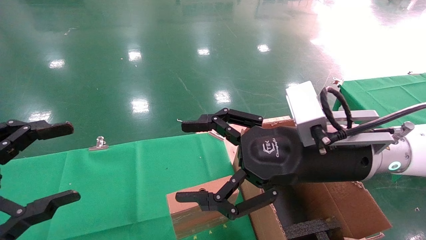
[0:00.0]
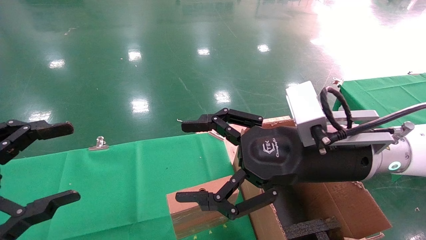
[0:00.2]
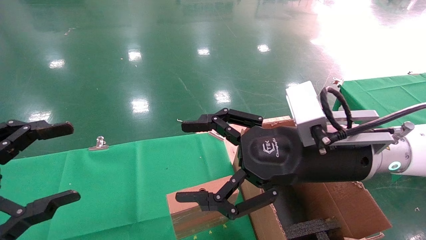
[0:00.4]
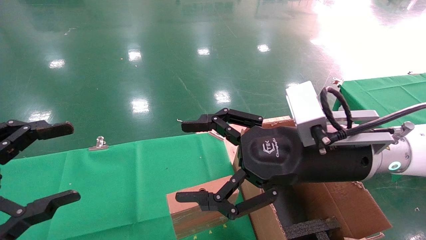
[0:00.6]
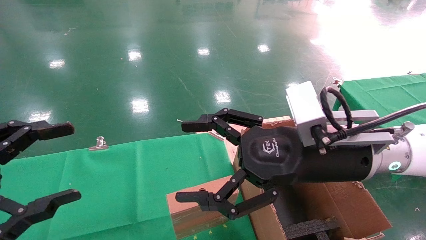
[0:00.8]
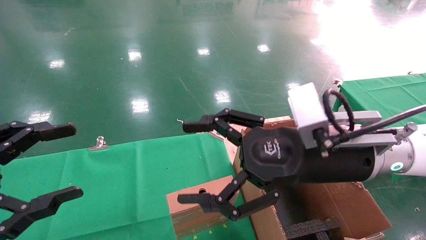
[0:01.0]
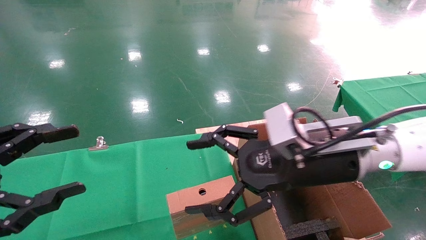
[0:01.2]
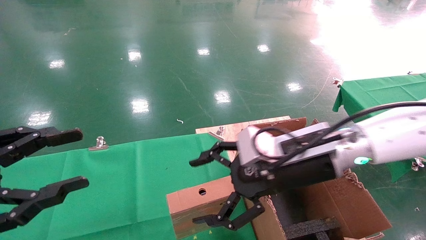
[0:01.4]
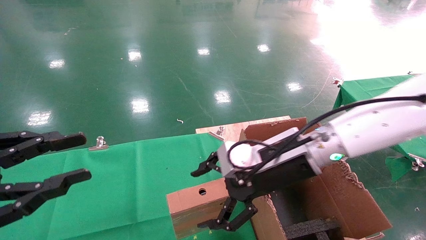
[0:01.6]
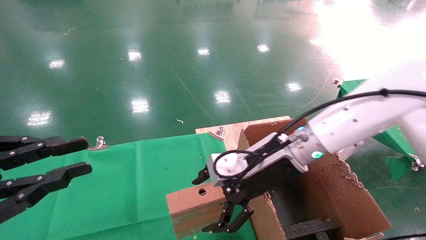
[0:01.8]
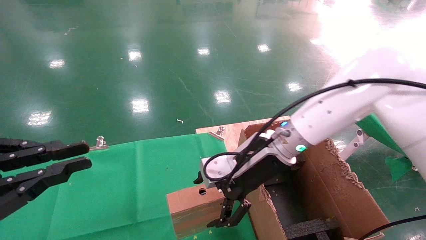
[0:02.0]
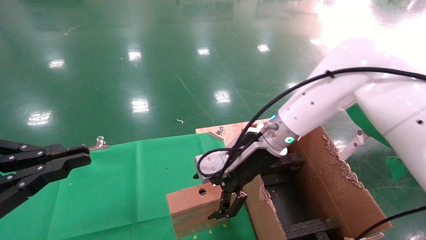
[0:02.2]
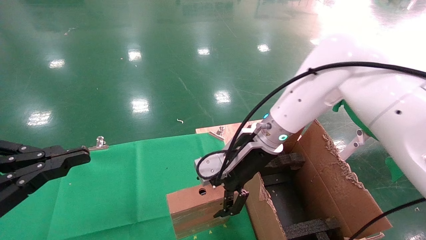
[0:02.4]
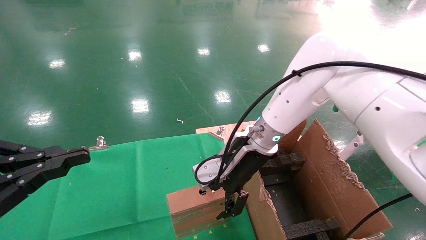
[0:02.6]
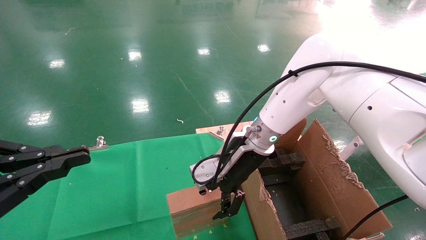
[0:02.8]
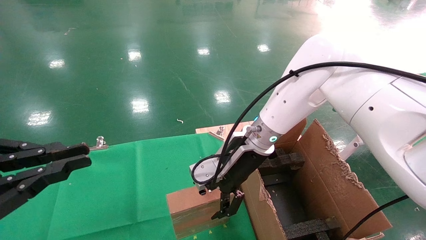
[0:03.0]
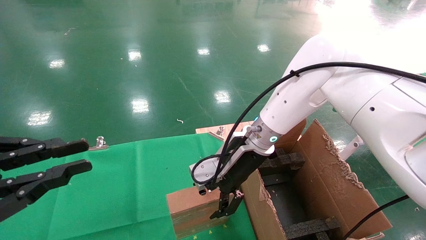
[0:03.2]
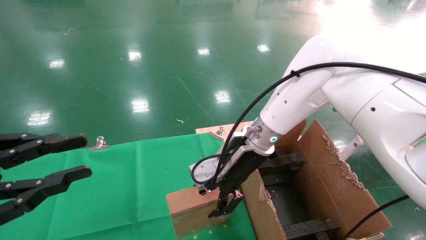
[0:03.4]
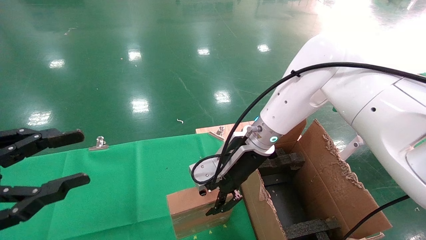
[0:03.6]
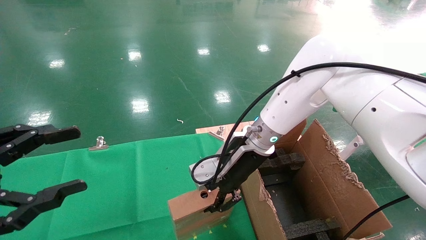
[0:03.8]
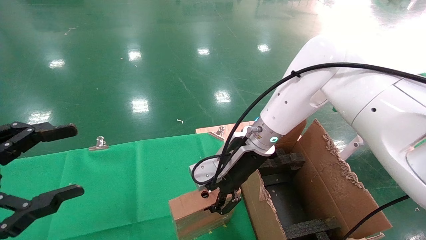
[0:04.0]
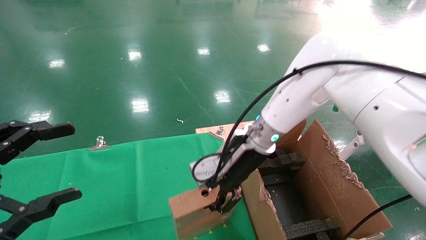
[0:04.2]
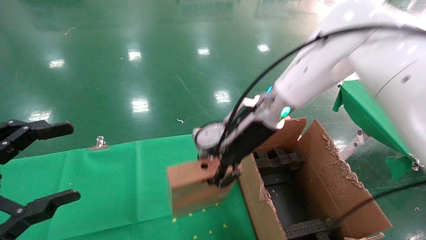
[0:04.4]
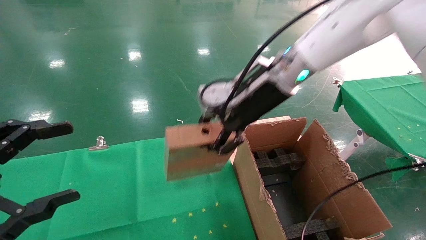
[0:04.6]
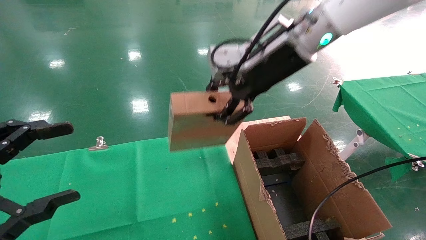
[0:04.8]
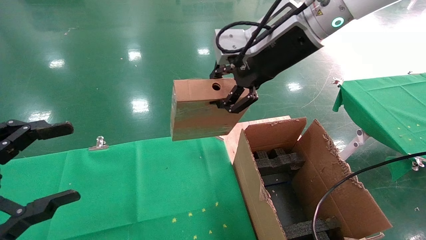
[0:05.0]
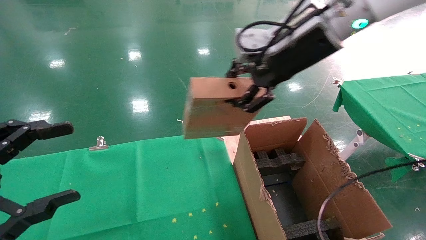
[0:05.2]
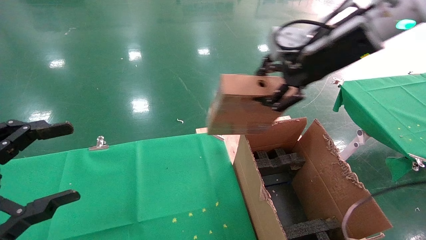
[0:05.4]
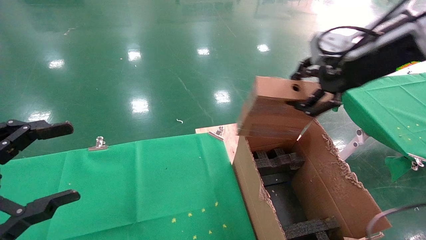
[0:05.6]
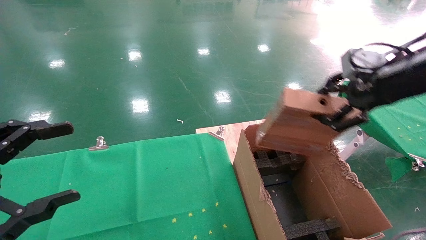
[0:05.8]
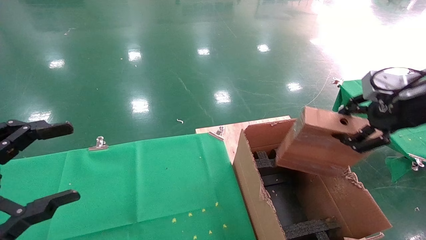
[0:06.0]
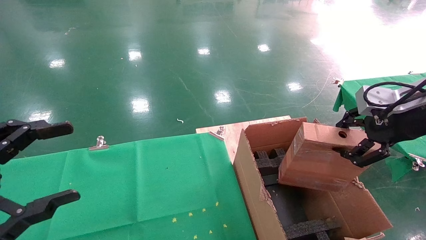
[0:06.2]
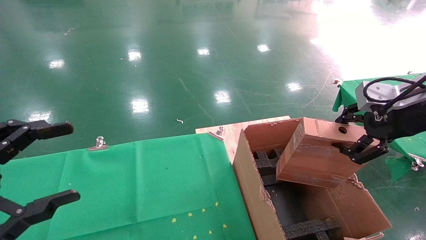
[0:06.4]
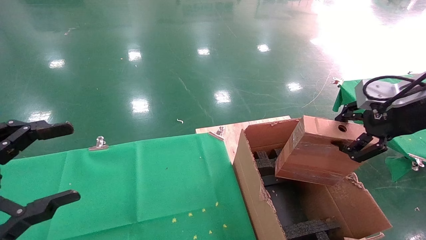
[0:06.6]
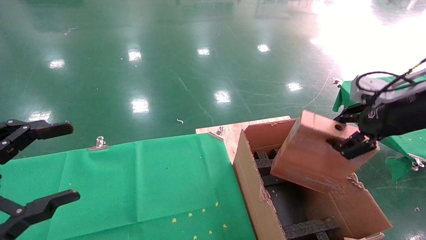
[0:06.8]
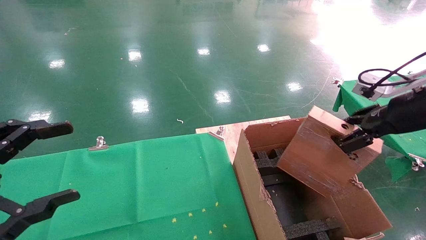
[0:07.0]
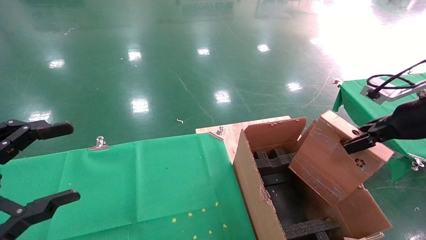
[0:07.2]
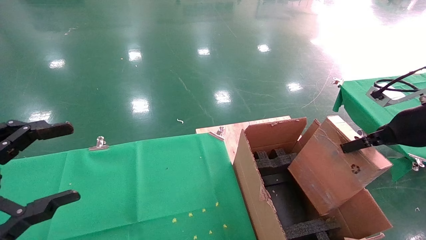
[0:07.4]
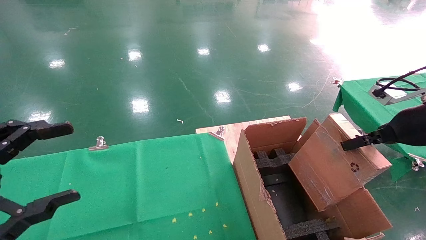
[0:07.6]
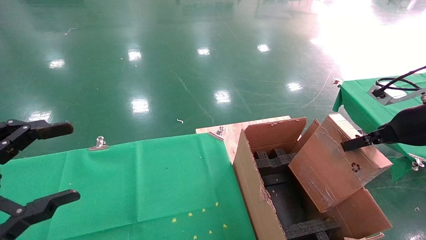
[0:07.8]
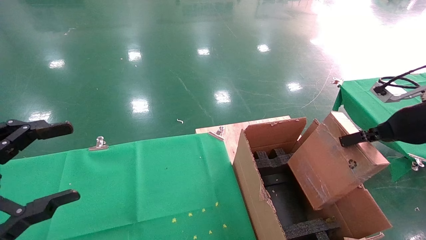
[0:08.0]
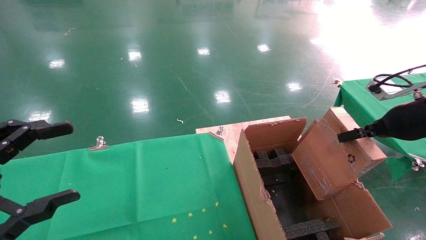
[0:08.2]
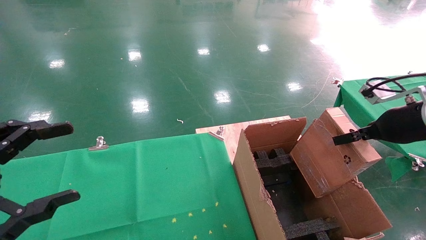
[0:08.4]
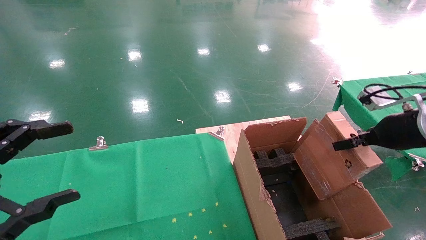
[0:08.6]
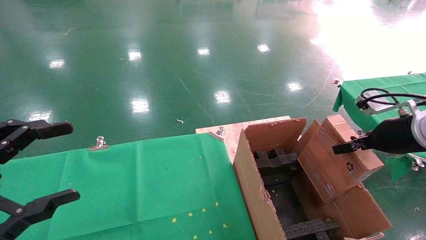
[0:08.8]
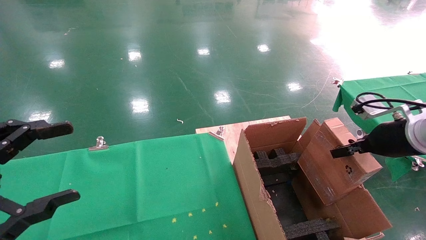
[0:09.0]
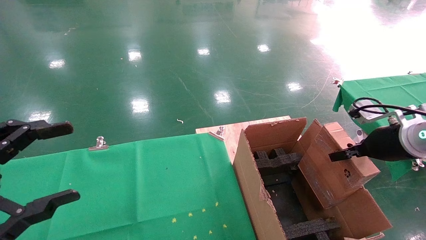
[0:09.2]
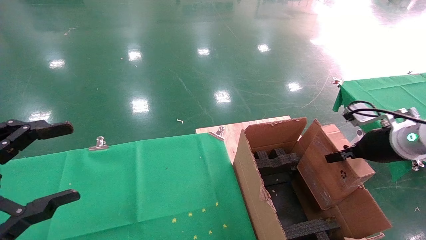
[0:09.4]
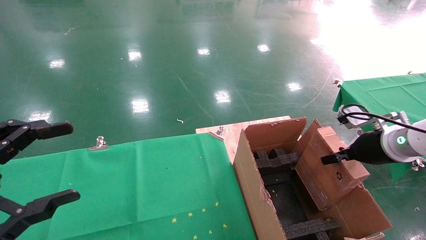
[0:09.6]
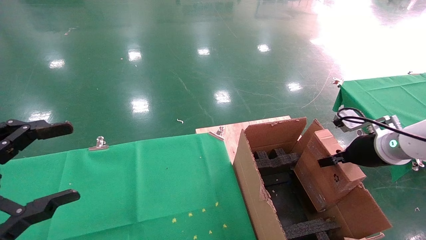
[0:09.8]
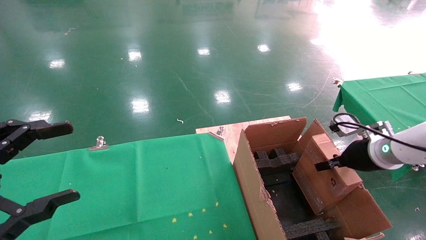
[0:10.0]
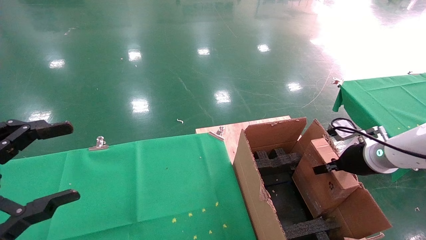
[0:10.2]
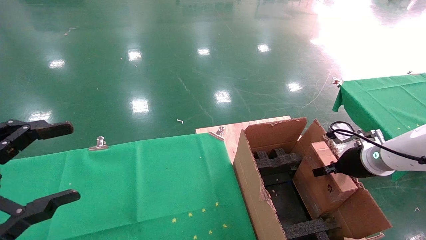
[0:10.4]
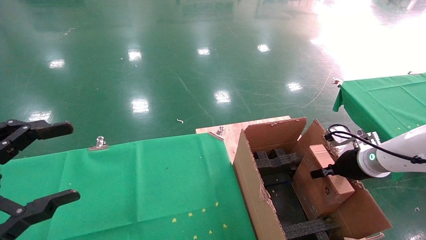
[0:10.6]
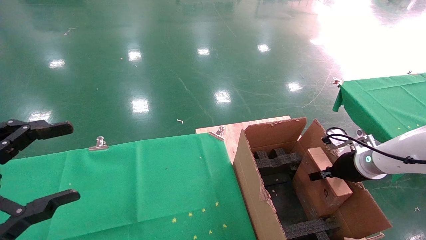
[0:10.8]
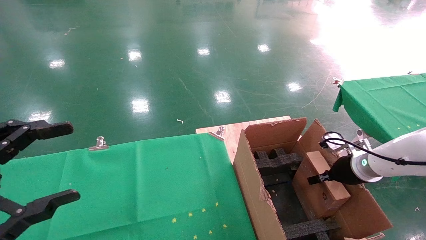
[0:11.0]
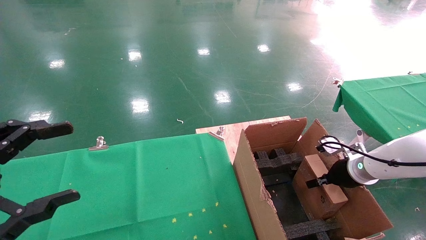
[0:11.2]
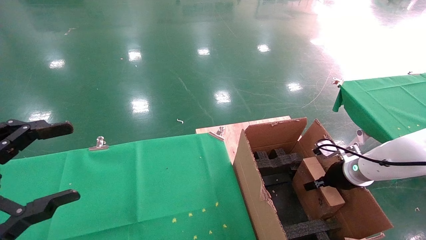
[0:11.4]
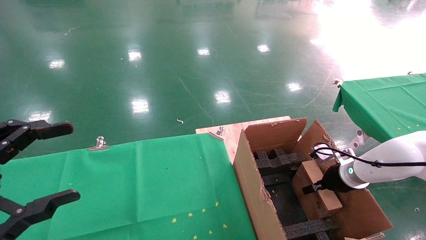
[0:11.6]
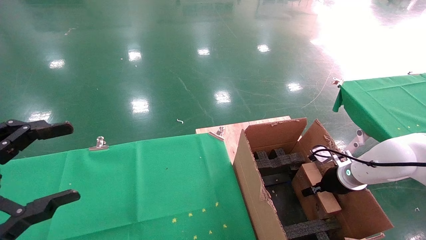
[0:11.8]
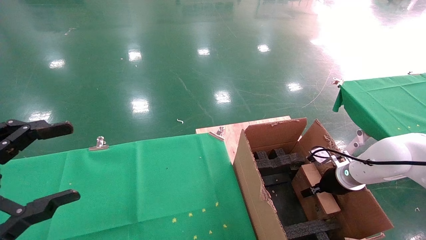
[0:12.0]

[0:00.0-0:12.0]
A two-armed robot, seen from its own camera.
Task of the whole recording: using a robotic arm to pick up a cardboard box and palace it the carton.
Step, 0:01.2 to 0:04.4: Pick up the mouse and the power cord paper box.
0:00.0 to 0:01.6: The left gripper closes its fingers. Meanwhile the right gripper is displaced forward by roughly 5 cm.
0:01.6 to 0:03.0: The left gripper closes up. Meanwhile the right gripper is displaced forward by approximately 10 cm.
0:03.0 to 0:04.4: The right gripper heads upward, covering some 5 cm, and closes up, while the left gripper opens.
0:04.4 to 0:06.0: The right gripper is displaced to the right and backward by some 30 cm.
0:06.0 to 0:07.6: The right gripper is displaced downward by approximately 5 cm.
0:07.6 to 0:09.0: The right gripper ends up roughly 5 cm from where it was.
0:09.0 to 0:10.4: The right gripper moves downward and forward, approximately 10 cm.
0:10.4 to 0:12.0: The right gripper travels downward by approximately 10 cm.

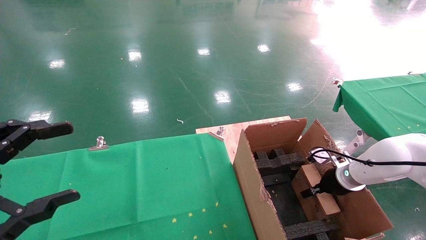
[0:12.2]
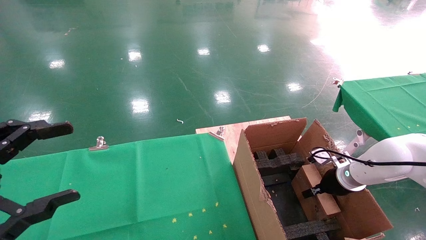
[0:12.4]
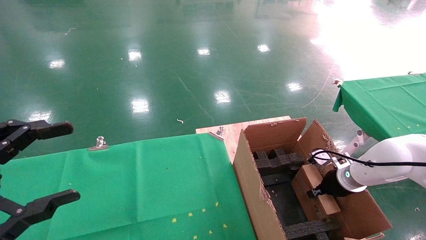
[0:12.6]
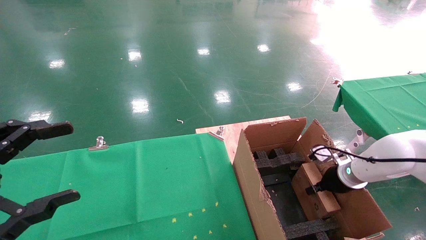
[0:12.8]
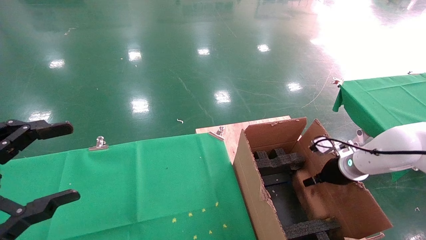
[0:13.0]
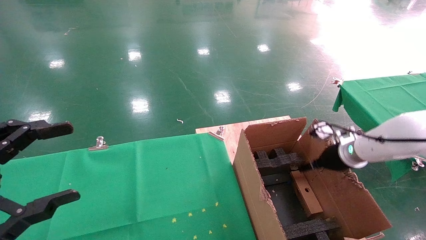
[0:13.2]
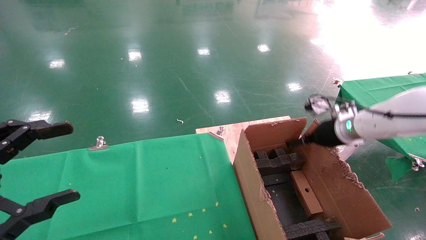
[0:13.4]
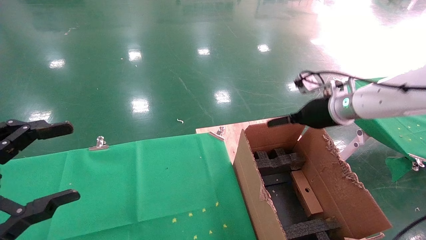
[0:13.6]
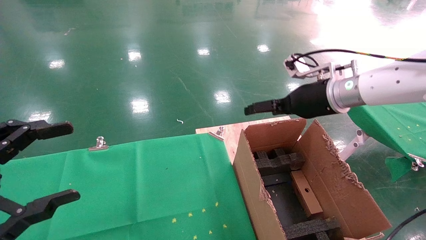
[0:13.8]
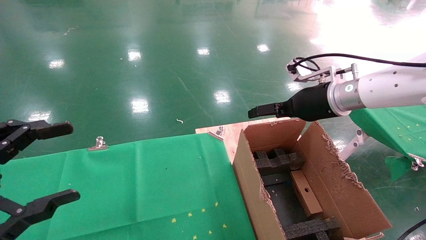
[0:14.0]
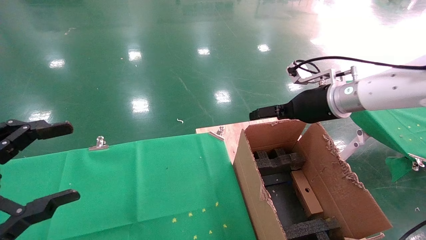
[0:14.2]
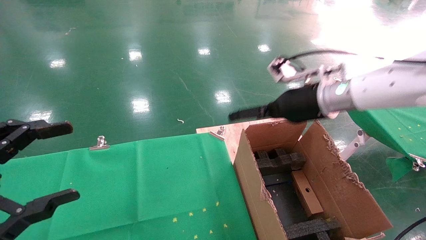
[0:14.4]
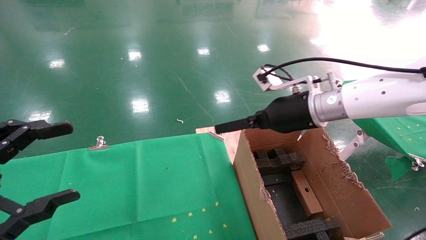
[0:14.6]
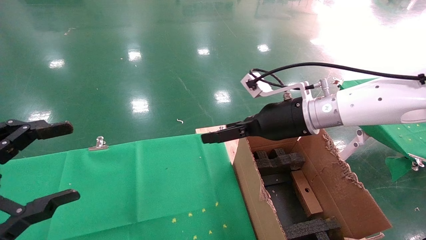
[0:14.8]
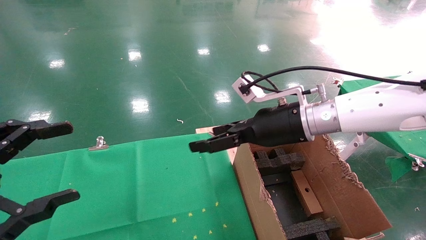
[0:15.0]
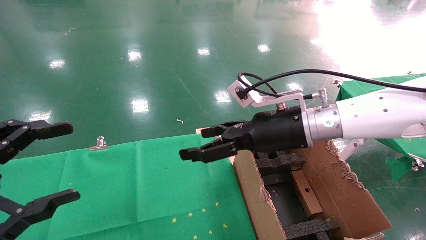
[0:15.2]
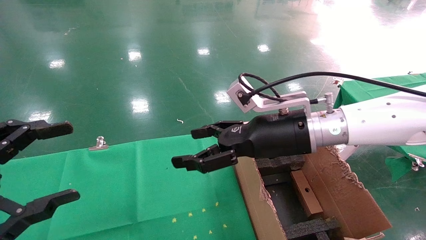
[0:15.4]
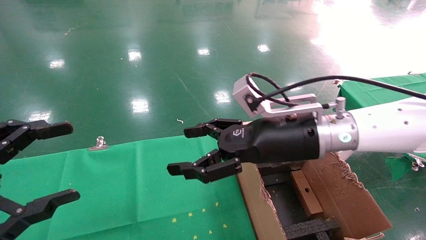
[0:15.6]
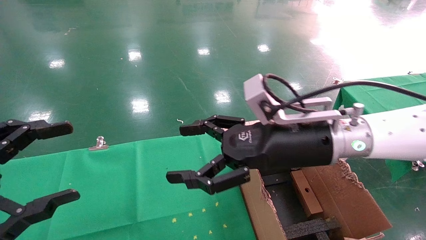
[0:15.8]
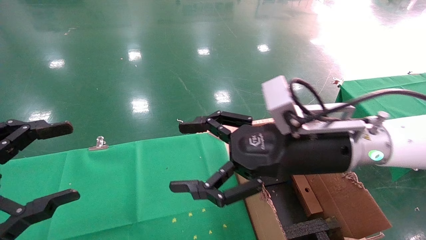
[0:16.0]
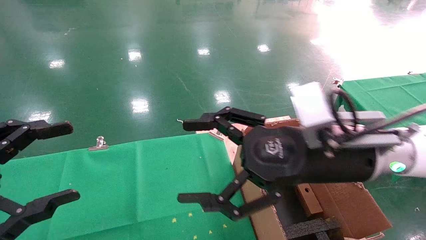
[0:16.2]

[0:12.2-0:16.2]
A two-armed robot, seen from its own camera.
Task of the whole recording: using a robotic arm to pick up a cardboard box and palace it the carton.
0:12.2 to 0:13.6: The right gripper is displaced upward by about 20 cm, and opens up.
0:13.6 to 0:14.8: The right gripper moves to the left, roughly 10 cm.
0:14.8 to 0:16.2: The right gripper goes about 10 cm backward.
